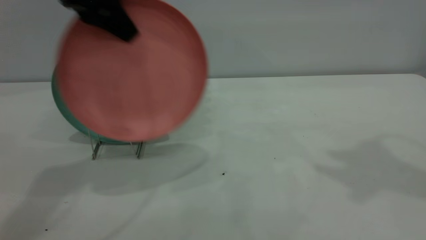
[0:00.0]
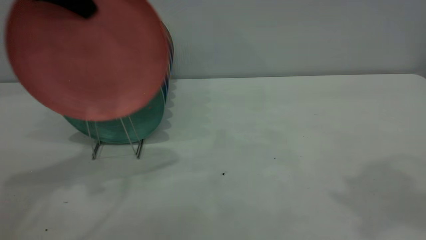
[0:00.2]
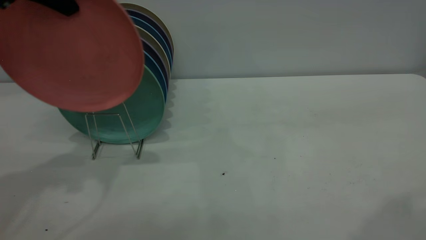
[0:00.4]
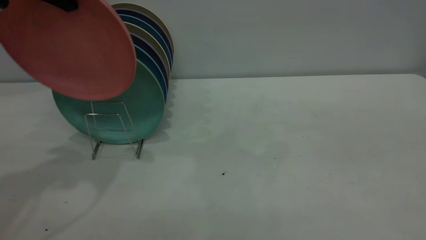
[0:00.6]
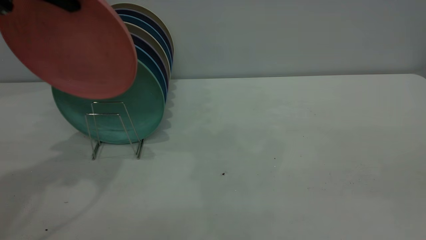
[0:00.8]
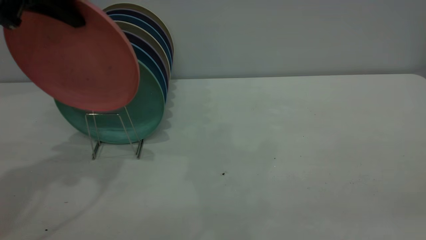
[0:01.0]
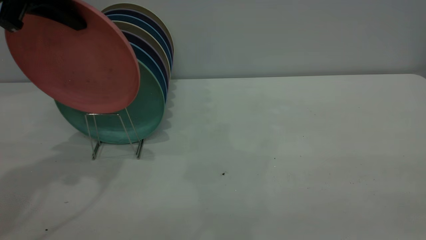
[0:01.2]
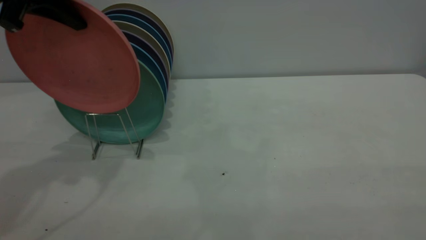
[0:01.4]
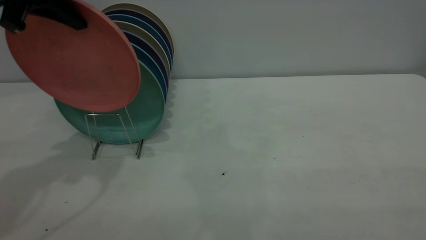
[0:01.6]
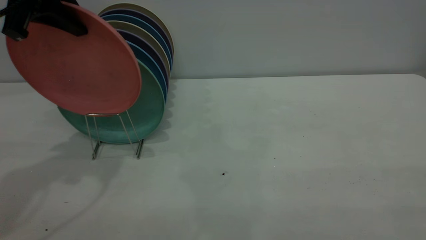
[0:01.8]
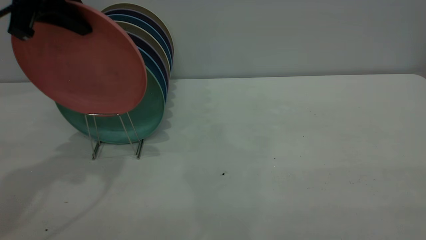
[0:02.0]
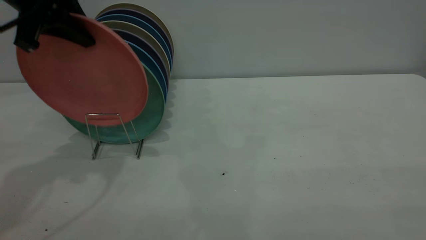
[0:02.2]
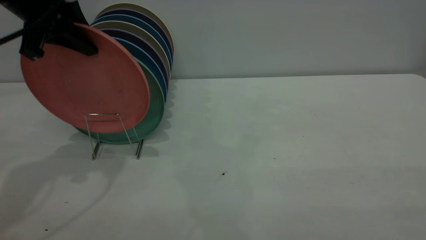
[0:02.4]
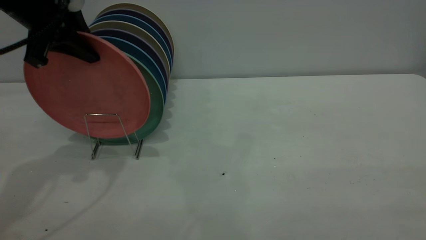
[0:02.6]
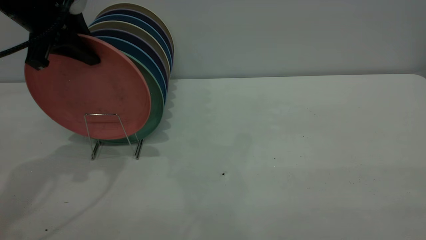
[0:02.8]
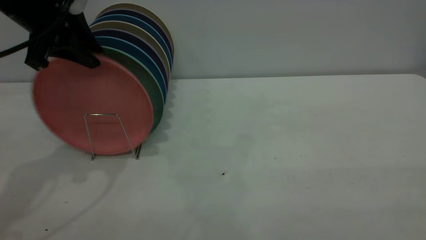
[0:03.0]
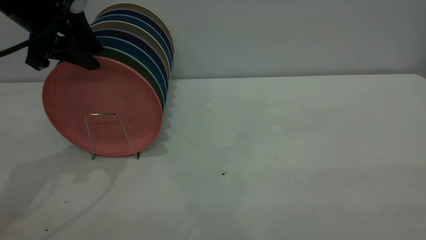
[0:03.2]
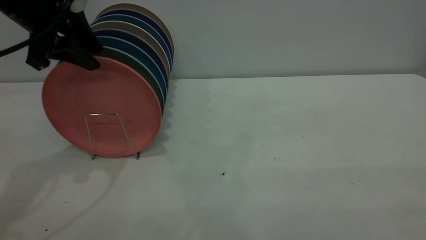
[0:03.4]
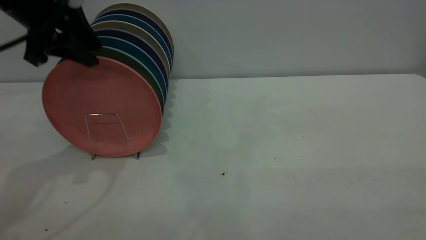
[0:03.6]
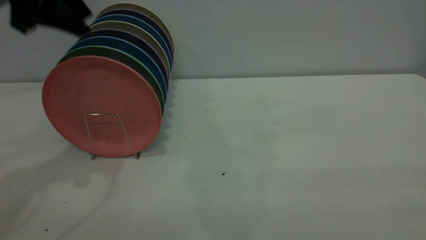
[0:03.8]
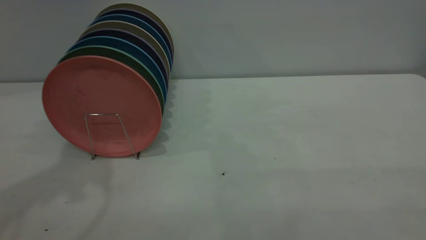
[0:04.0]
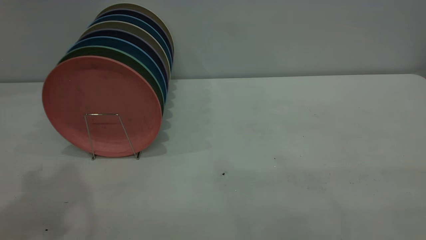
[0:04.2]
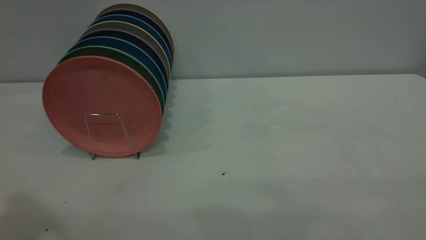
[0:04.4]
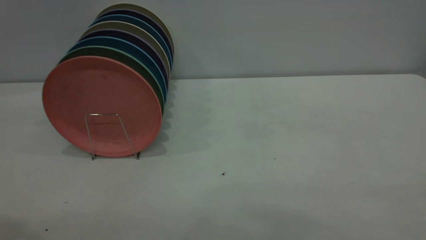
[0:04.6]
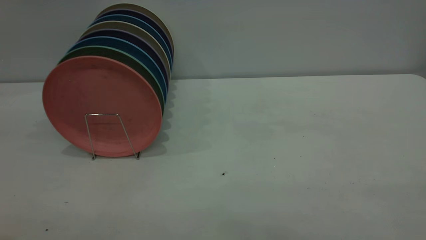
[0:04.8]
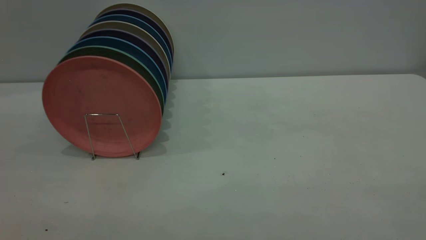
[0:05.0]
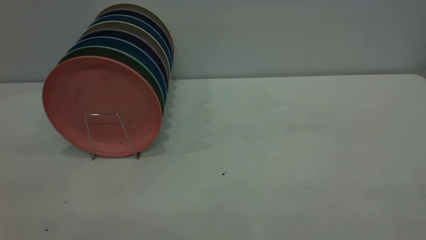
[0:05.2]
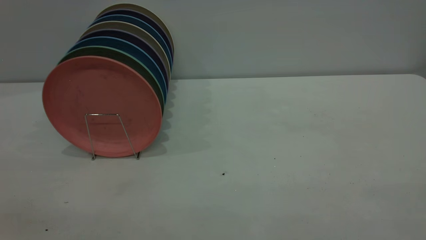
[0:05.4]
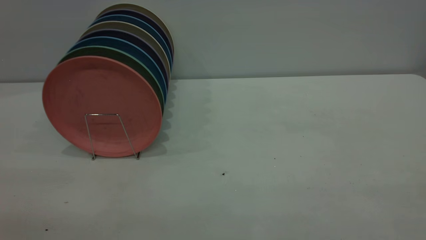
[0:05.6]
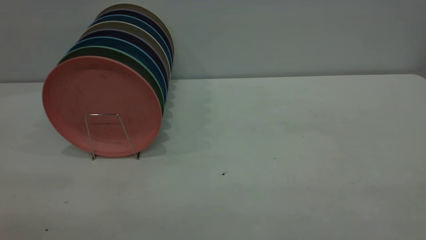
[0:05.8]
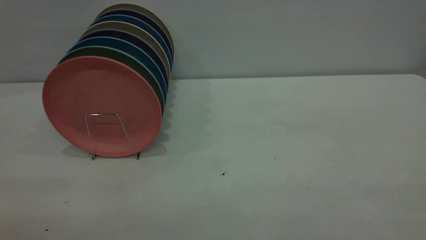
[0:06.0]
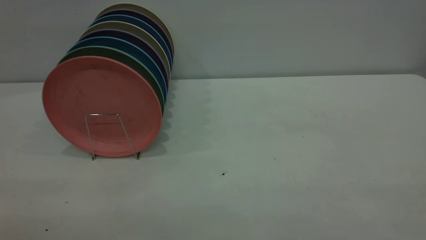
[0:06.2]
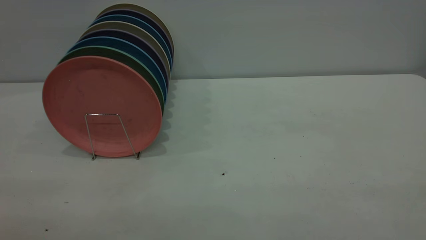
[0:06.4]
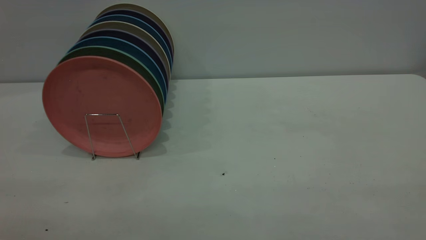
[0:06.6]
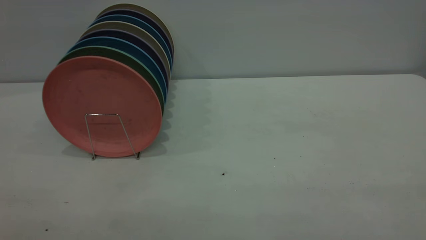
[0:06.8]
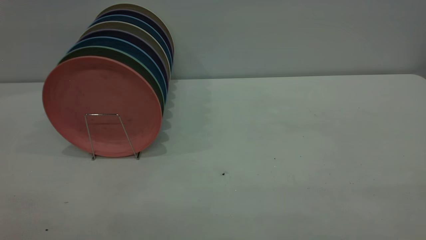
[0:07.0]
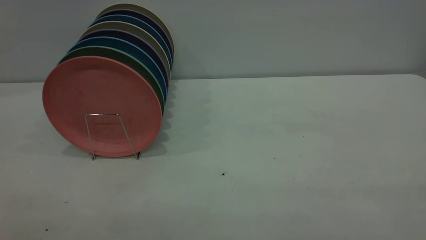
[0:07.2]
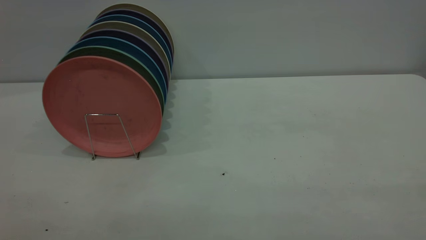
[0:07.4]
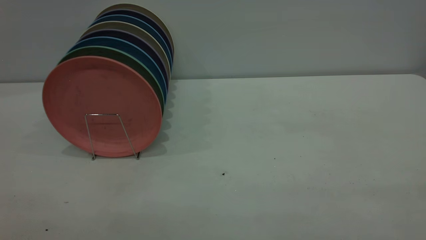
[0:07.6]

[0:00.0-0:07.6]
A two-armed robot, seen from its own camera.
Task of the whole recording: the right gripper grasp the pink plate, the right gripper pass the pink plate to the left gripper, and the left gripper place the pink plate on the plate rack.
Step, 0:00.0 to 0:03.8: Place the plate on the shelf.
0:00.0 to 0:01.6: The right gripper moves backward, some 30 cm; the left gripper heads to the left, covering about 5 cm.
0:01.6 to 0:03.0: The left gripper goes some 5 cm downward, and opens.
0:03.0 to 0:04.6: The left gripper moves backward and upward, approximately 30 cm.

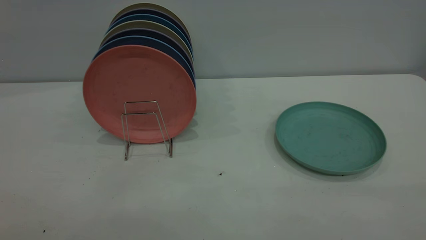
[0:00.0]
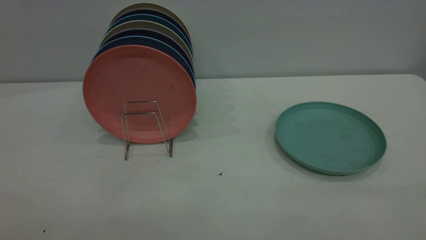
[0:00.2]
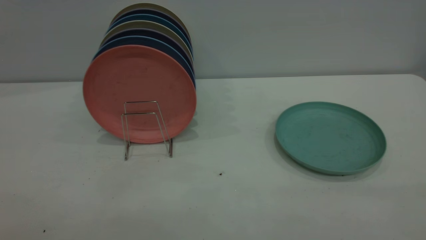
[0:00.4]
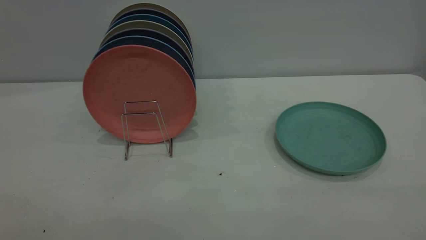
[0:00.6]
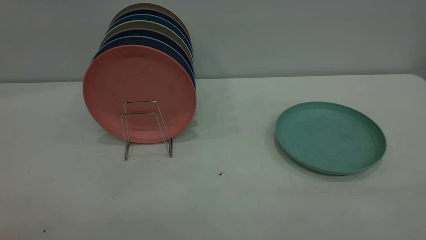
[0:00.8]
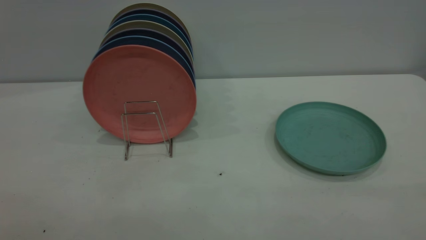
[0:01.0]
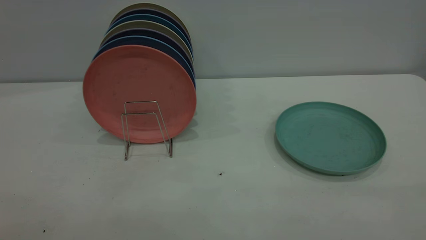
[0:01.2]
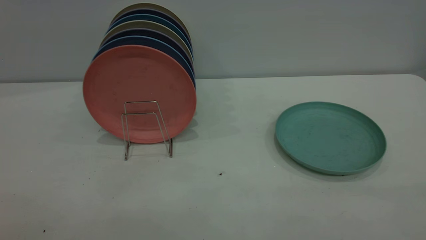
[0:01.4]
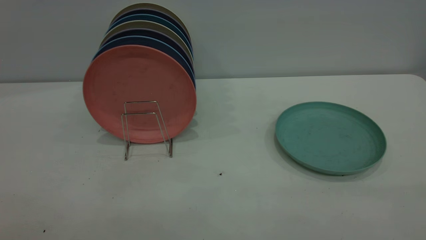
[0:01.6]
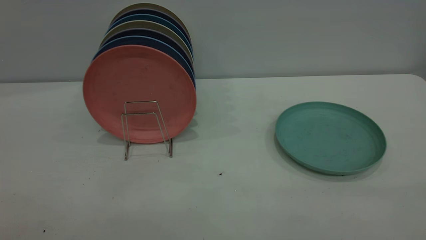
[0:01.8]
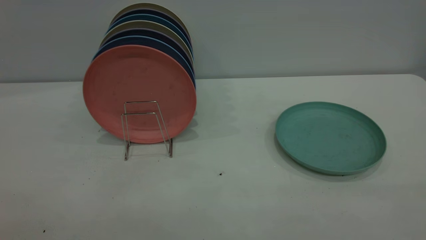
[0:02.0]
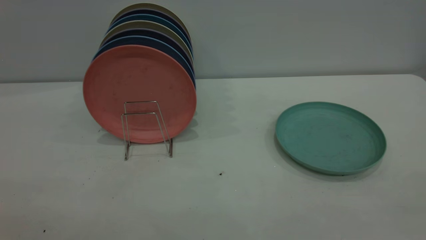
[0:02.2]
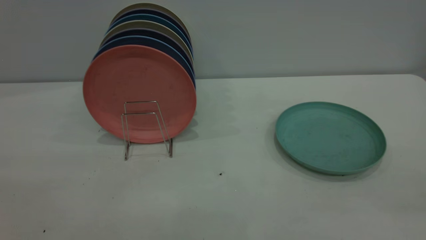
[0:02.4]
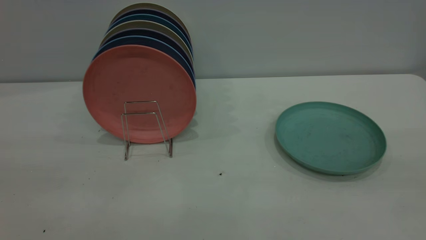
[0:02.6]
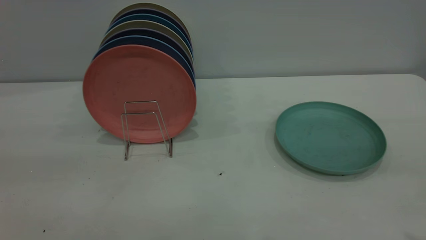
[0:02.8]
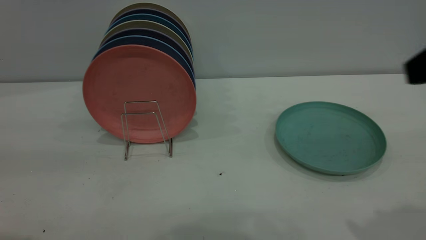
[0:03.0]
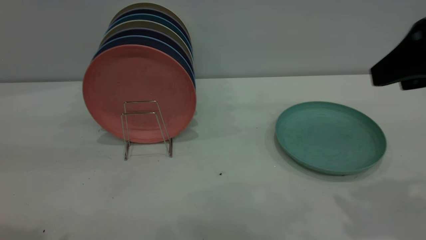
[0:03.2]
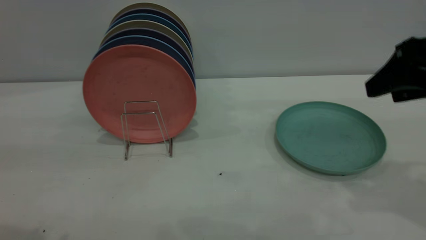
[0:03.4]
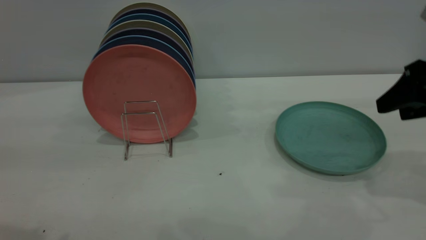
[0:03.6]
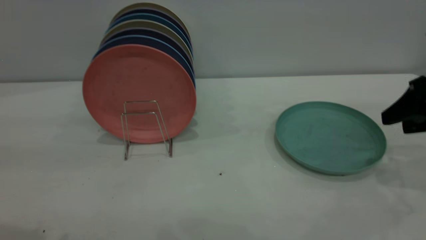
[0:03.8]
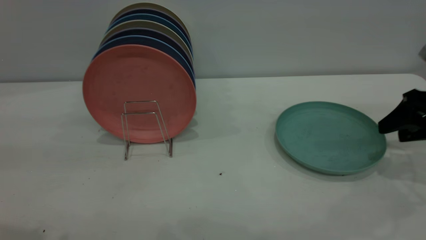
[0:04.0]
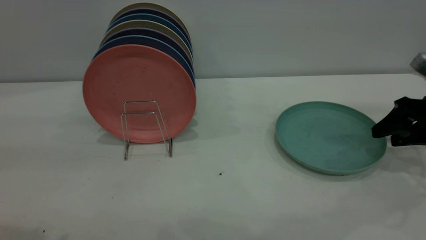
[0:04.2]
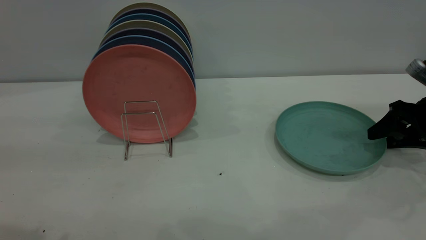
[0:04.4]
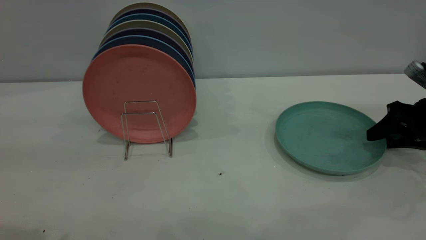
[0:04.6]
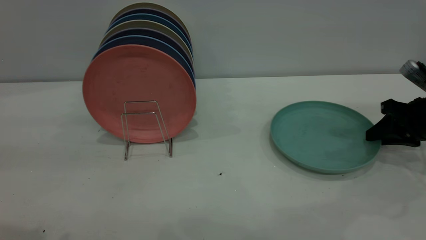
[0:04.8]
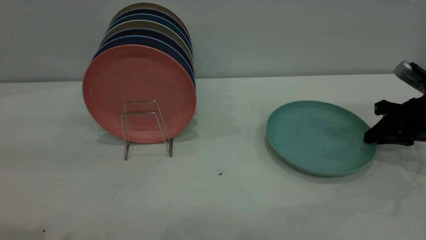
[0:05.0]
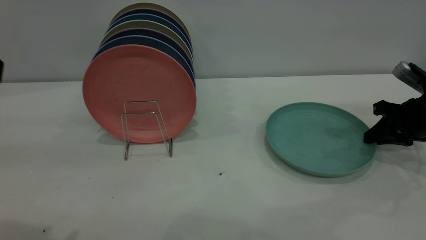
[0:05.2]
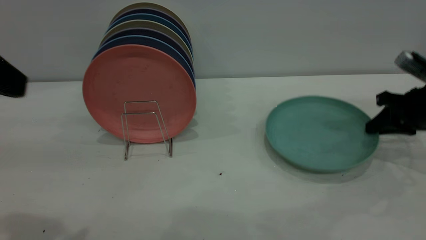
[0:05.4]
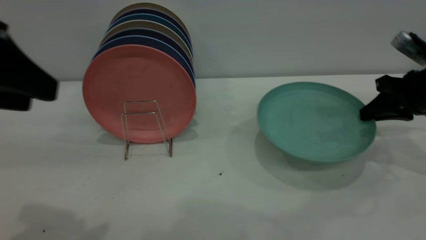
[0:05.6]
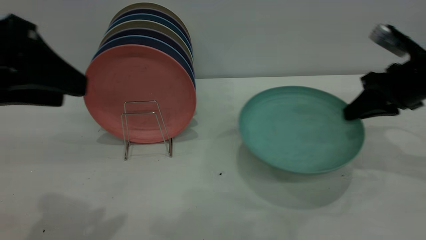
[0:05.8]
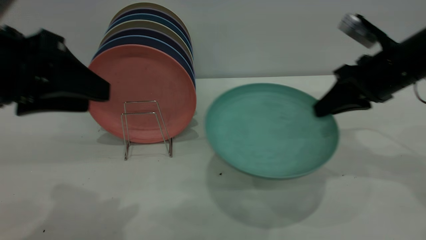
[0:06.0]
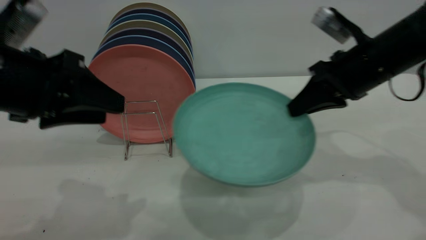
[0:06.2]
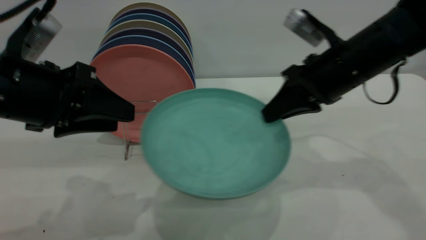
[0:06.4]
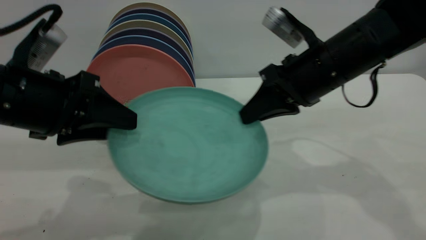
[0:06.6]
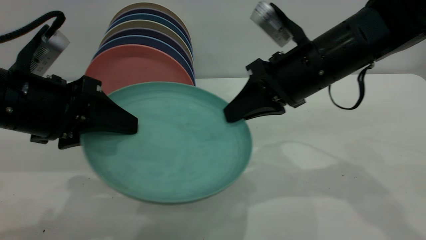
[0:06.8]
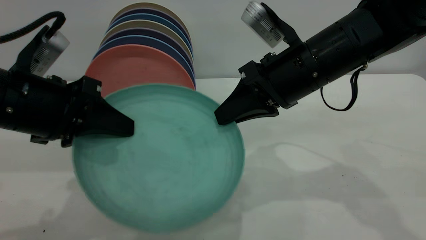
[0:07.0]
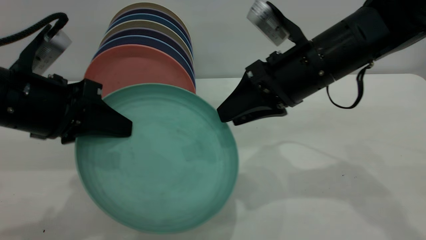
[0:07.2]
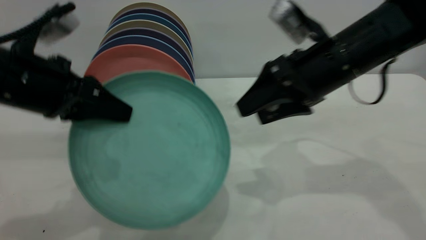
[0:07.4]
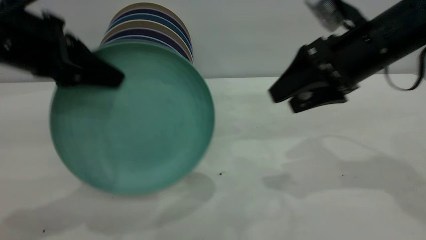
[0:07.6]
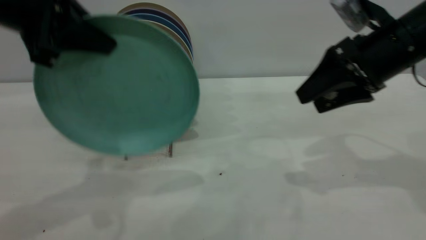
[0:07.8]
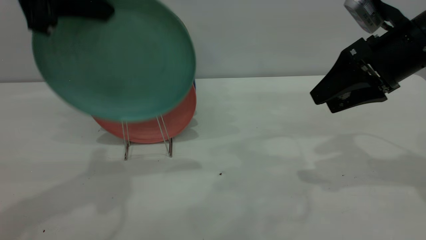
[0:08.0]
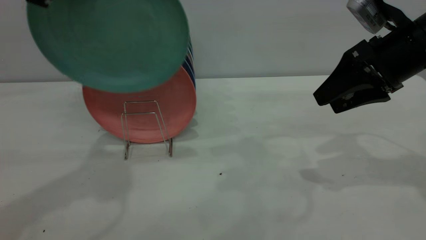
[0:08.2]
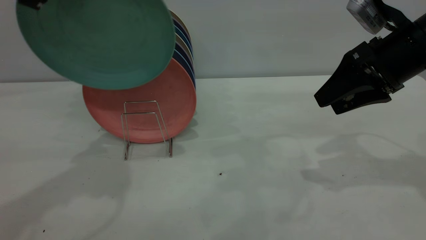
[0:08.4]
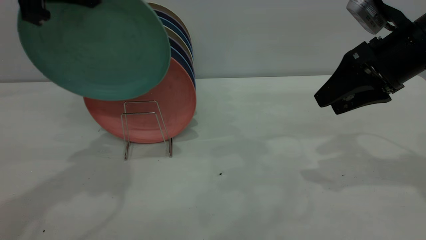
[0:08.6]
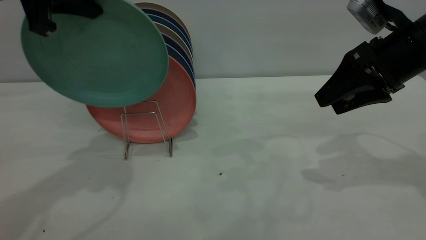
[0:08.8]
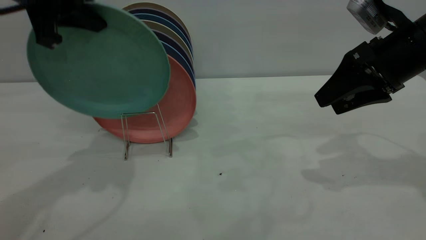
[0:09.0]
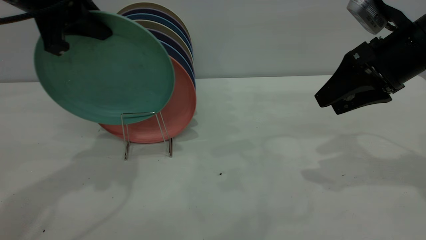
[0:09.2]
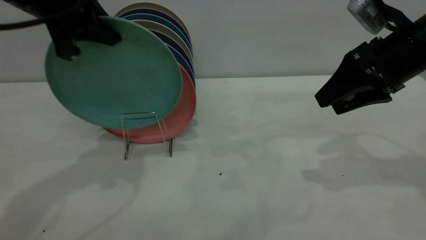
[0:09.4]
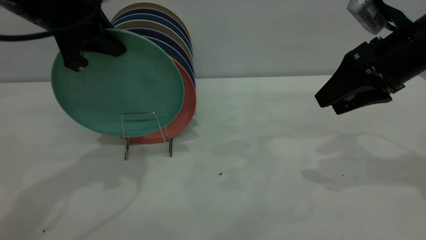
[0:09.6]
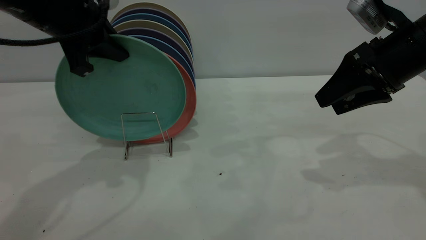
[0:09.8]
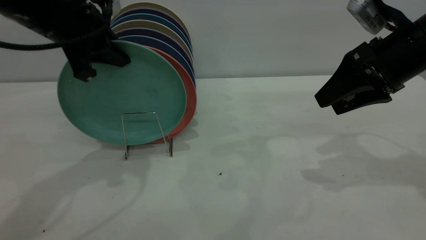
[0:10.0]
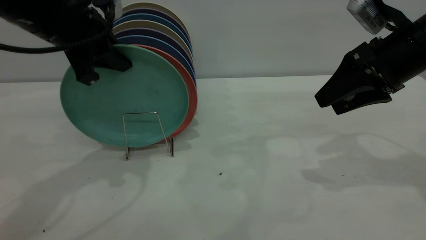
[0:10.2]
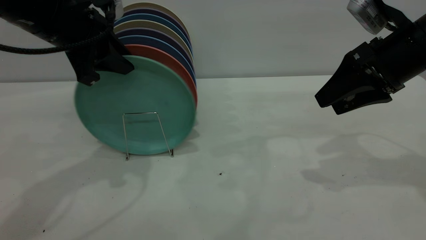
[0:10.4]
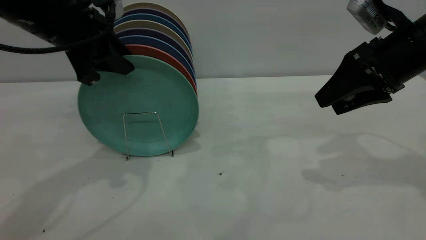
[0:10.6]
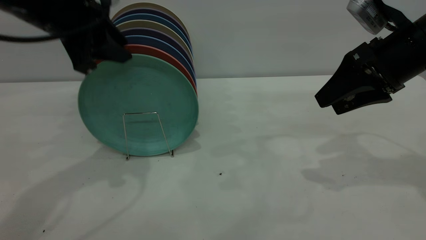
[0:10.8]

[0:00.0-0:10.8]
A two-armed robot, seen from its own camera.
Task of the whole recording: the right gripper grasp the green plate, the right gripper pass the green plate to the left gripper, and the left gripper place the green plate on the plate rack.
Step, 0:00.0 to 0:05.4: Pick up the plate with the right gripper.
Step, 0:05.6 to 0:07.2: Pass the plate from the right gripper to the left gripper.
0:00.0 to 0:01.6: Both grippers stay put.
0:03.0 to 0:04.6: The right gripper is displaced downward, forward and to the right by about 30 cm.
0:04.6 to 0:06.2: The left gripper goes about 15 cm downward and forward. Meanwhile the right gripper goes roughly 20 cm to the left and upward, and closes.
0:06.2 to 0:07.8: The left gripper shifts some 10 cm upward and forward, and closes. Meanwhile the right gripper moves about 10 cm to the left and comes back, and opens up.
0:07.8 to 0:09.2: The left gripper shifts roughly 5 cm forward.
0:09.2 to 0:10.8: The left gripper opens its fingers.
